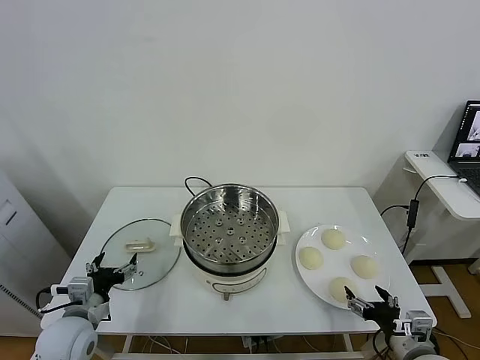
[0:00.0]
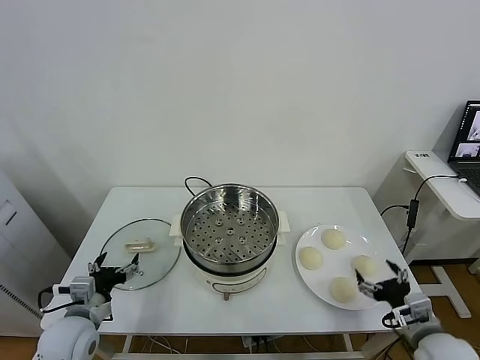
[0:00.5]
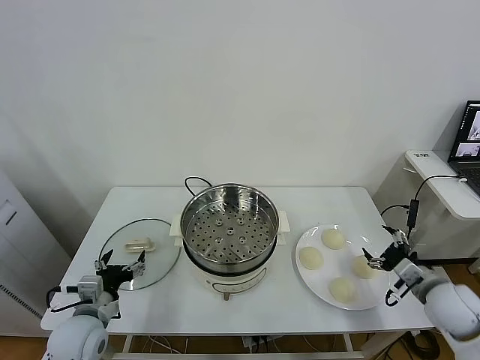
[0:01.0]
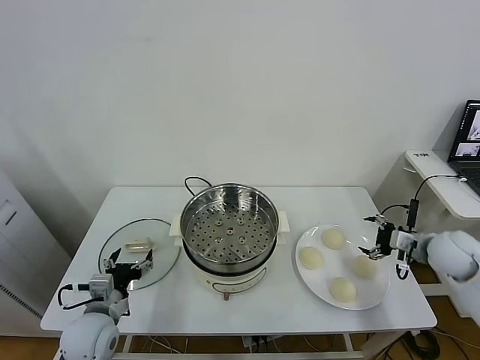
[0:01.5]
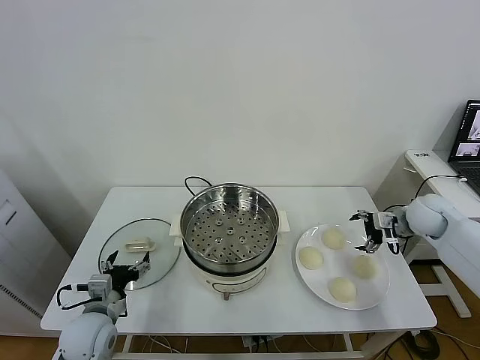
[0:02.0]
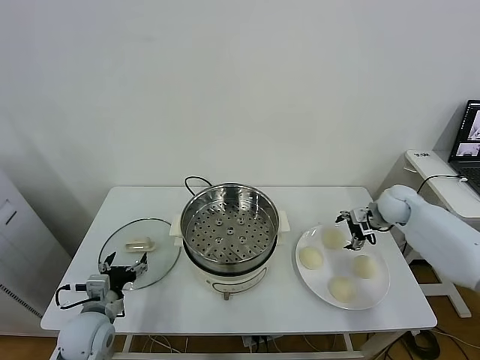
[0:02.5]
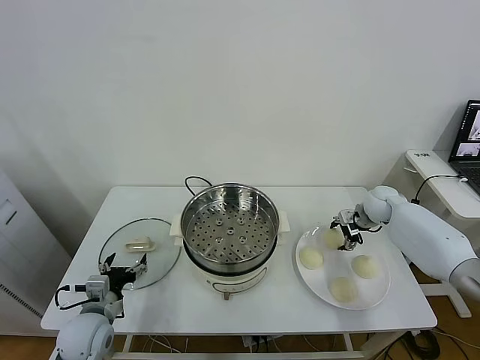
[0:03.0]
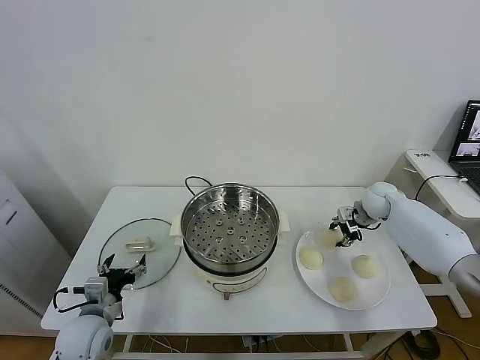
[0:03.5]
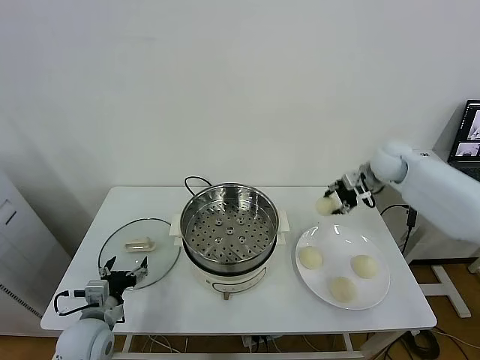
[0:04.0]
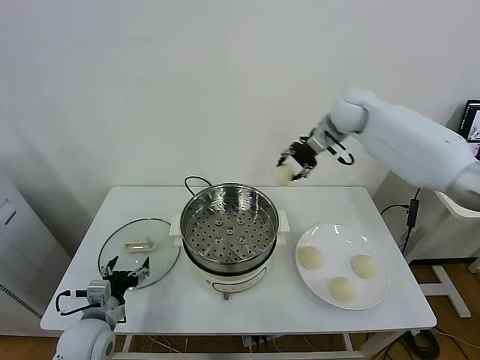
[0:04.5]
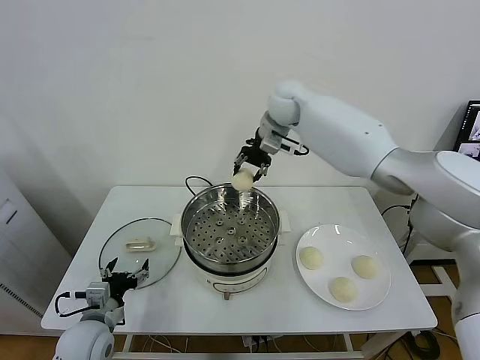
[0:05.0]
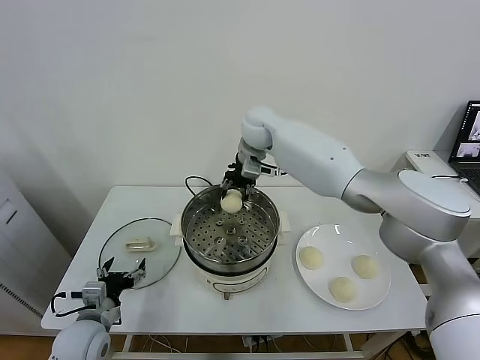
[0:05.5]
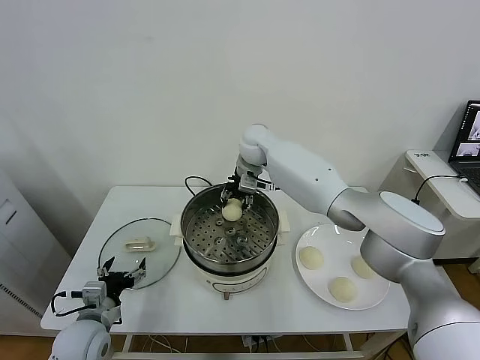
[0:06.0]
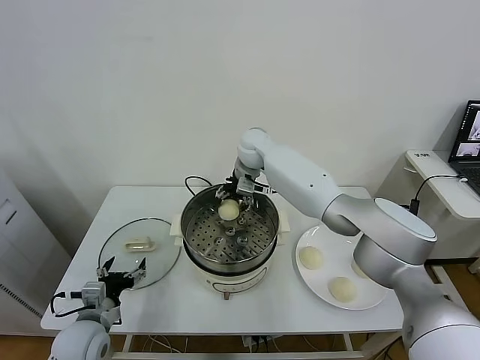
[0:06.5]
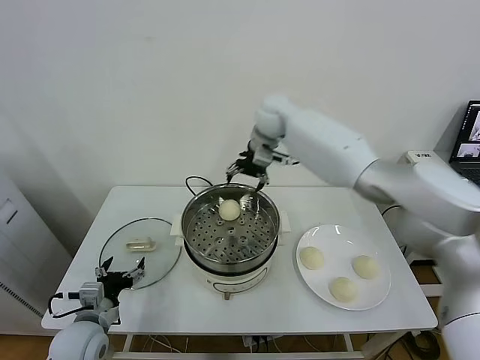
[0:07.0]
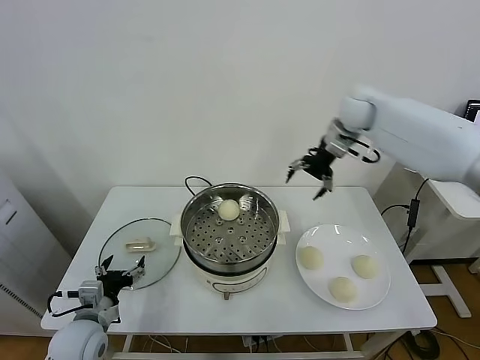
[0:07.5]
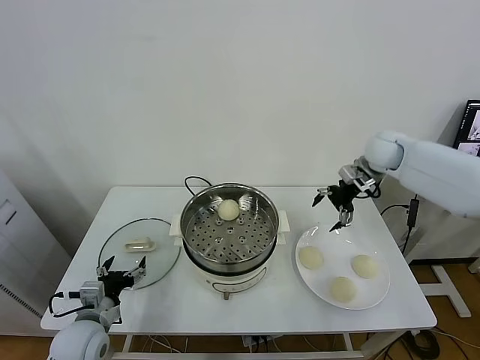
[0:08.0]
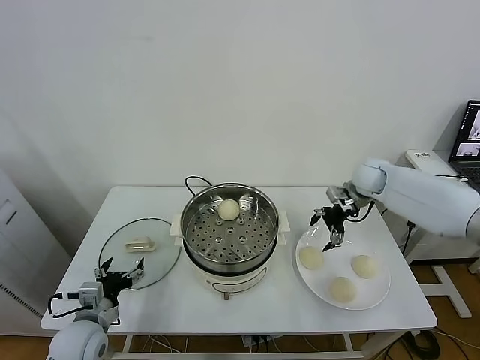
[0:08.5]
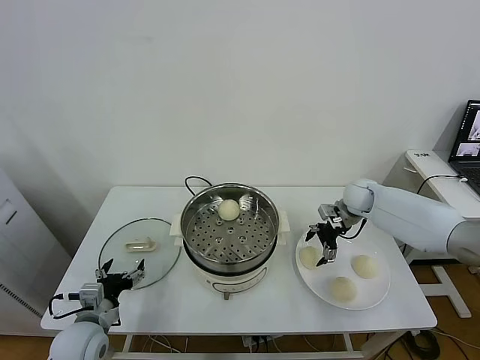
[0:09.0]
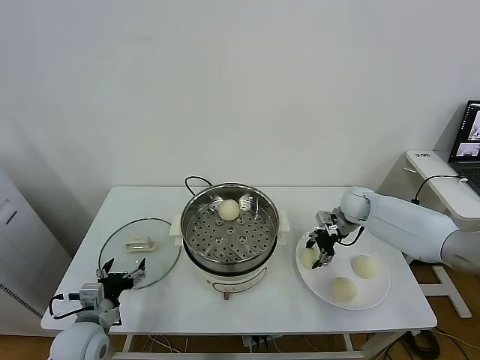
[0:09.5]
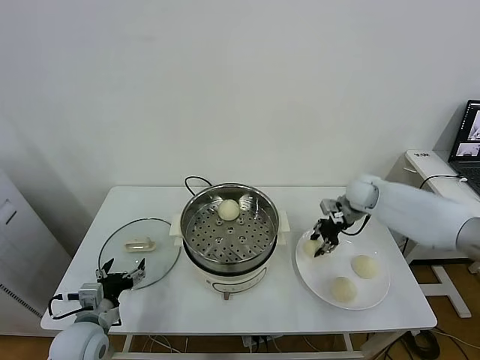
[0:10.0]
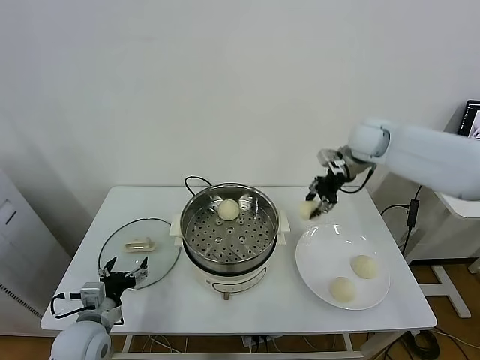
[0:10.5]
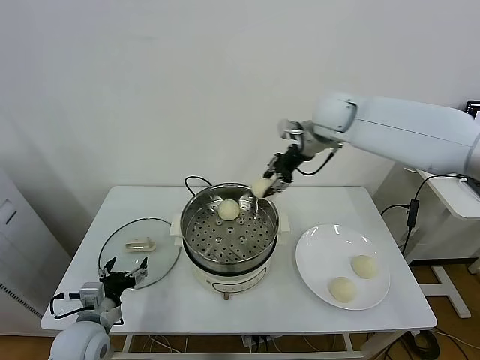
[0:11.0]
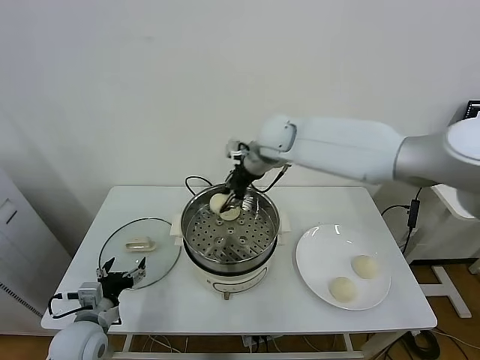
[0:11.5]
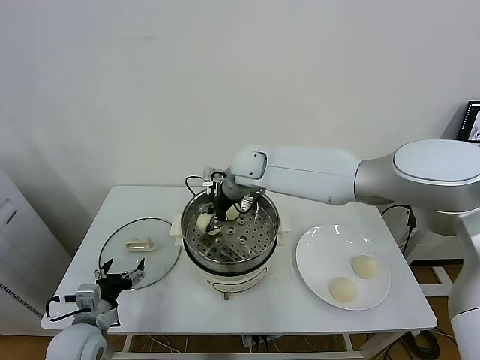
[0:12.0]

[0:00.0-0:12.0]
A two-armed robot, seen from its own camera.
Task of the whole recording: take steamed baozi put them in steamer.
Step, 0.0 to 3.0 s: Grasp the baozi in the plate with right gripper.
Step, 3.5 to 6.5 s: Place the baozi on the steamer with right gripper.
Step, 7.0 to 9.0 s: Grasp the baozi in the plate with right gripper.
2.0 to 4.0 s: The right gripper heads upward, to the left and forward, covering about 20 cm, and closes its fingers.
4.0 to 6.0 s: The right gripper heads to the left, covering about 30 cm.
6.0 to 8.0 s: The right gripper shifts some 30 cm to the right, and opens.
8.0 to 10.0 s: The right gripper travels downward by approximately 5 cm, and closes up.
10.0 to 12.0 s: The right gripper travels to the left by approximately 30 cm.

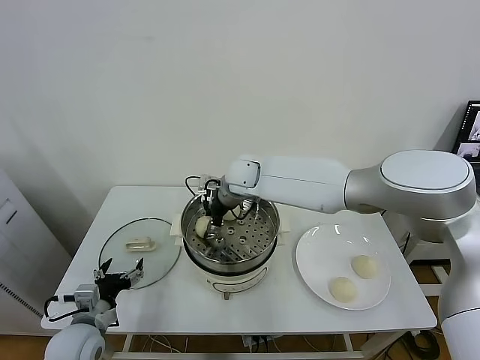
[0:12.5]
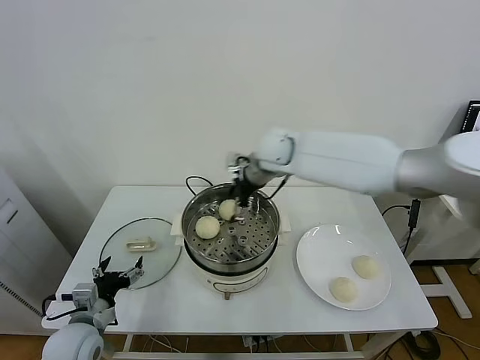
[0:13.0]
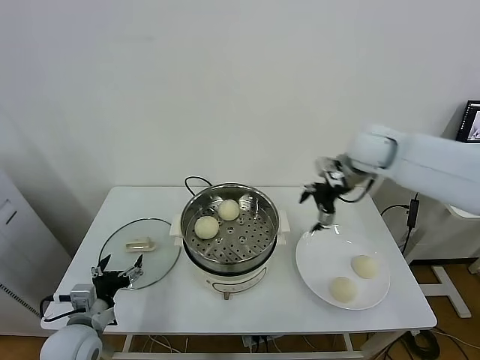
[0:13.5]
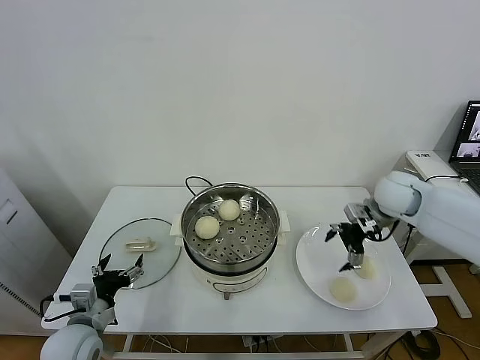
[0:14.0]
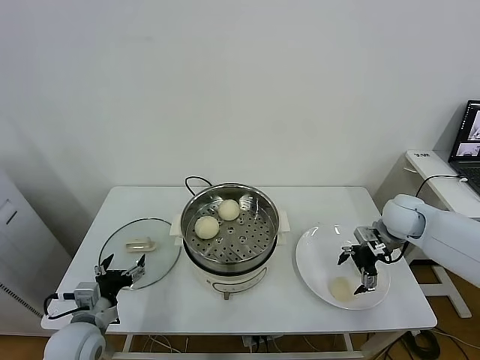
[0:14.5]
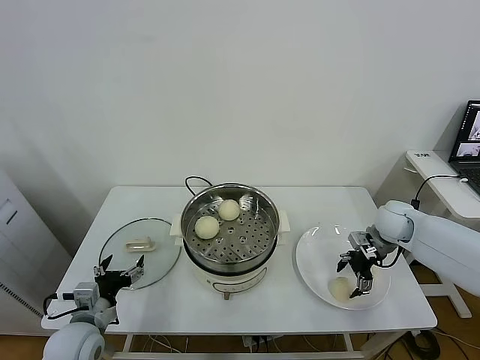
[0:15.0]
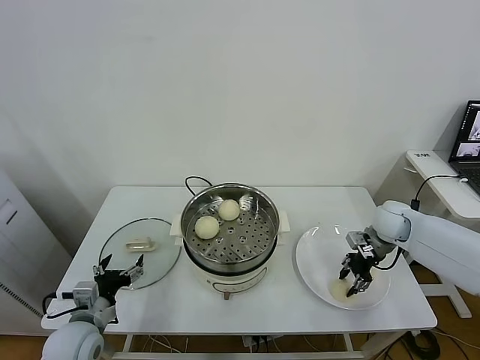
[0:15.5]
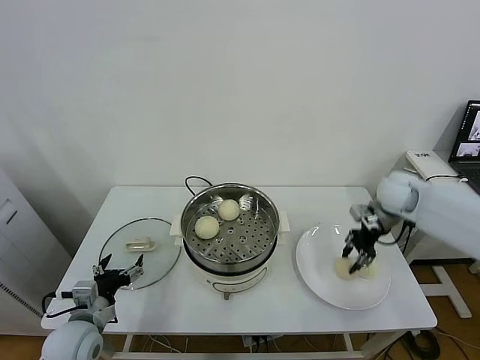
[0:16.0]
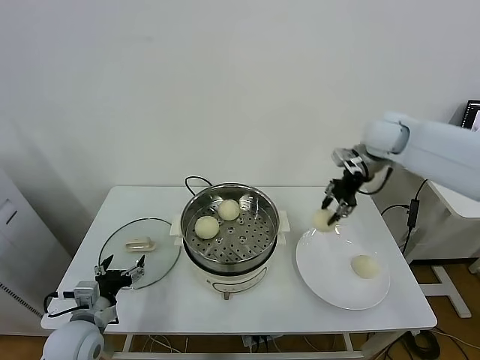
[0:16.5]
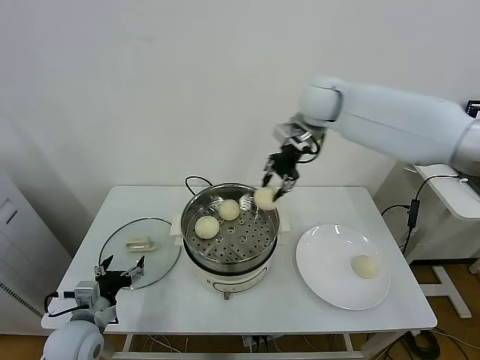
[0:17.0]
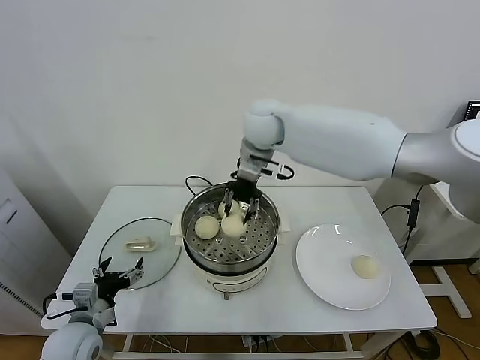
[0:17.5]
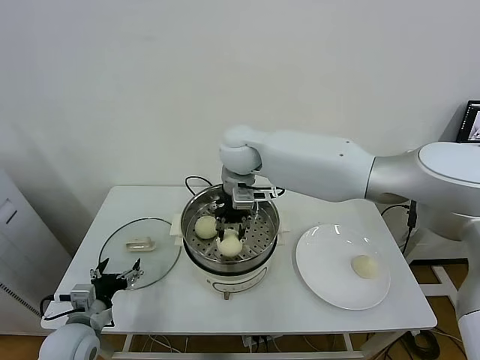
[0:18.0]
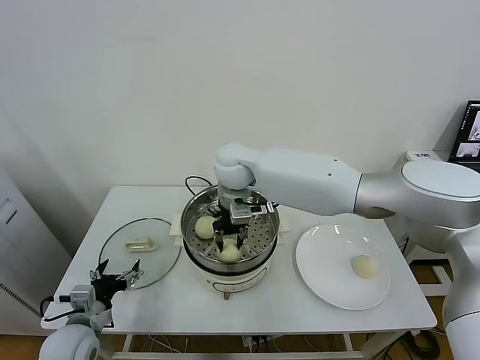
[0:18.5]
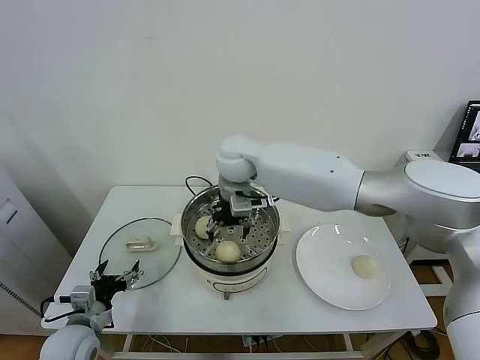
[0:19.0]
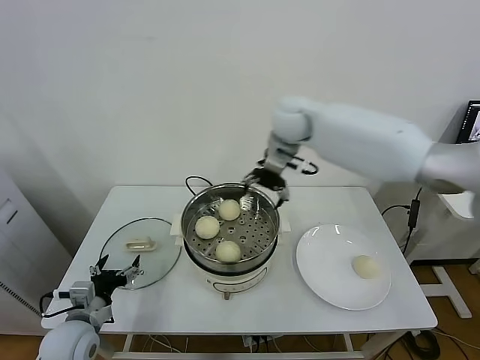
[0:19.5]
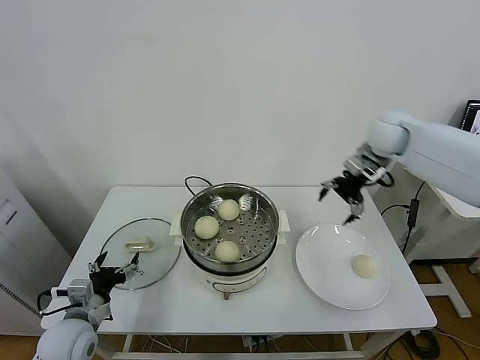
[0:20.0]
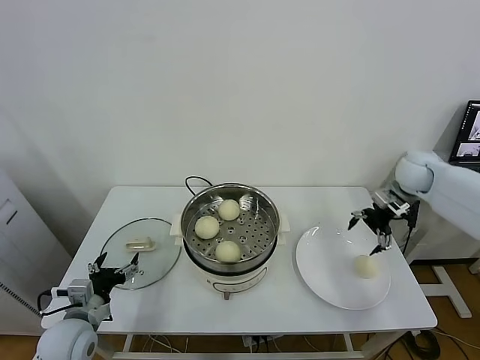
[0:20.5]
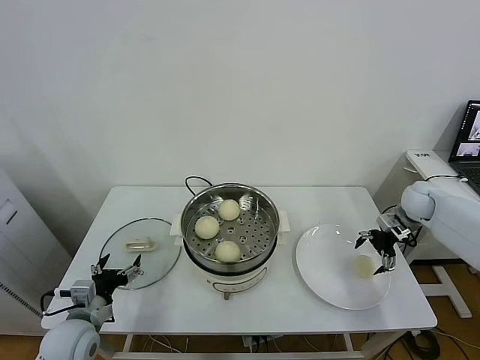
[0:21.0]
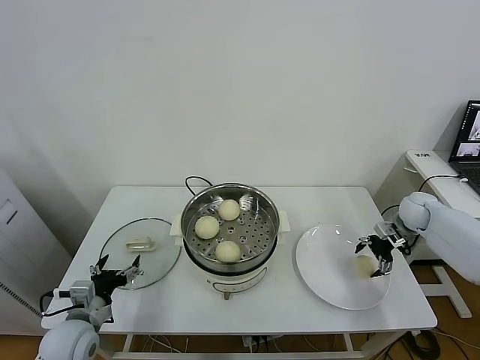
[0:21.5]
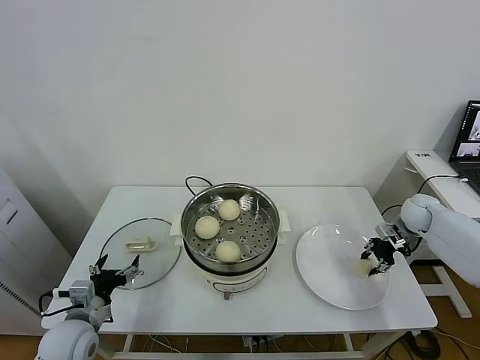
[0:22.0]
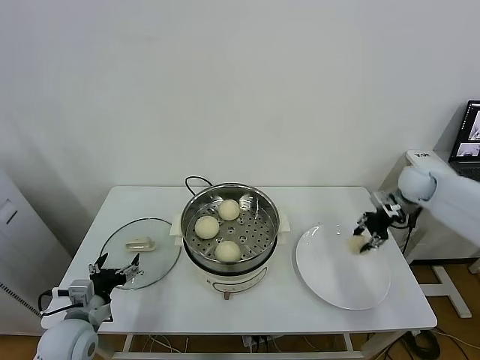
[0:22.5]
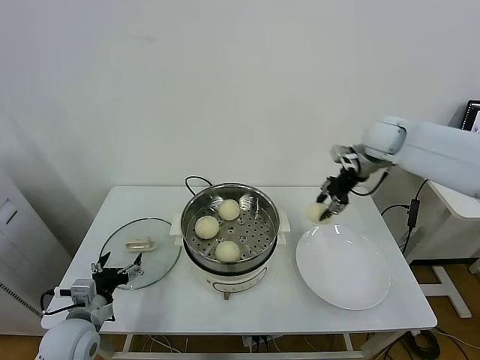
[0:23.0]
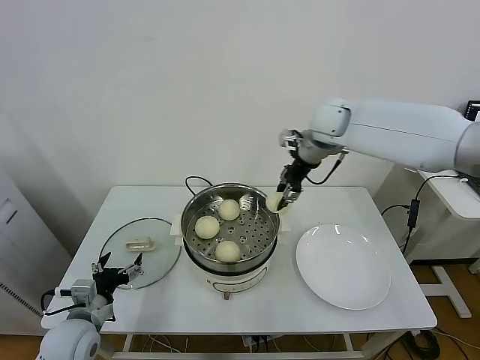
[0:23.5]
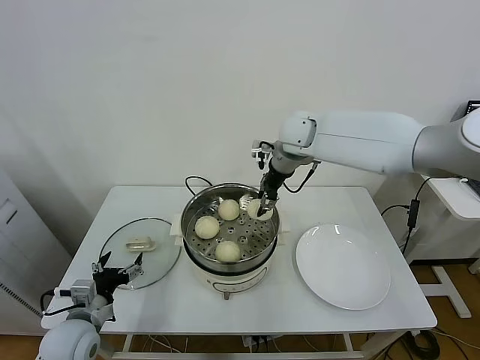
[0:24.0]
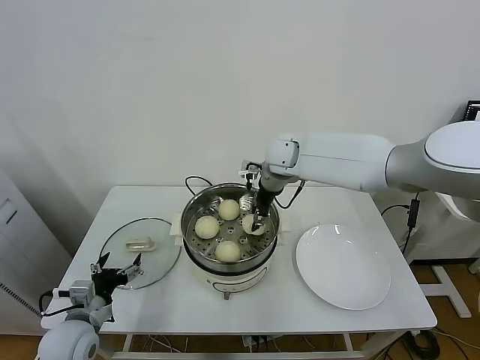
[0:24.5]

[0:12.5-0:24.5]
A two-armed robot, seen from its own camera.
Task of the whole recording: take steamed baozi put them in steamer.
Step, 13.0 to 15.0 s: Grasp the baozi in the plate with right gripper.
Step, 15.5 to 18.5 s: Place the baozi on the steamer with right gripper.
Step, 19.5 to 21.5 s: Grasp the baozi in the plate with right gripper.
12.5 to 14.5 s: The right gripper heads to the right, covering approximately 40 cm, and opens up.
14.5 to 16.5 s: The right gripper heads upward, to the left and forward, covering some 25 cm, and closes its fingers.
16.5 to 18.5 s: The right gripper moves to the left, roughly 30 cm.
18.5 to 20.5 s: The right gripper heads to the right, covering some 40 cm, and opens.
20.5 to 22.5 s: The right gripper travels downward and back again, about 10 cm each way, and closes up.
22.5 to 24.5 s: The right gripper shifts some 35 cm to the left.

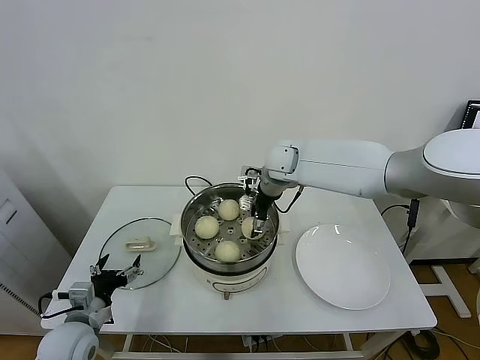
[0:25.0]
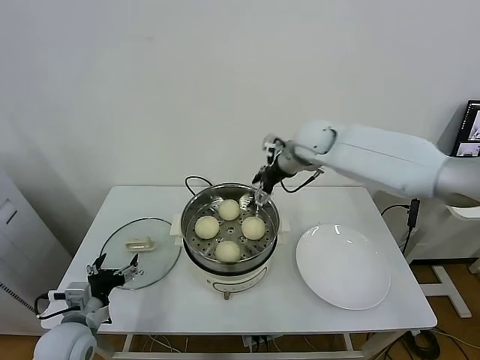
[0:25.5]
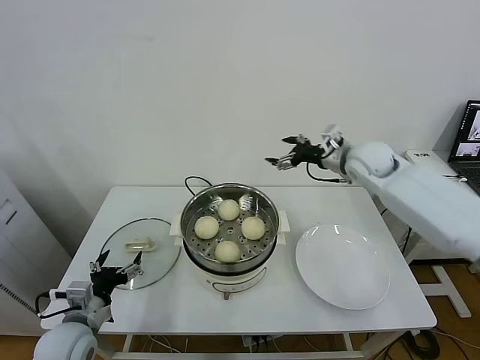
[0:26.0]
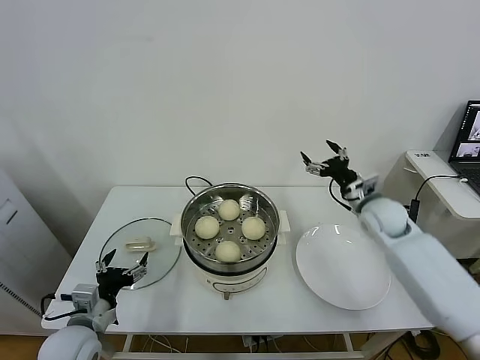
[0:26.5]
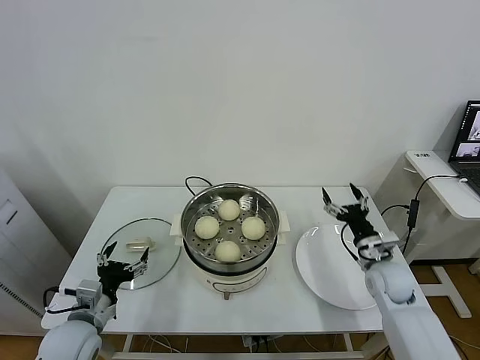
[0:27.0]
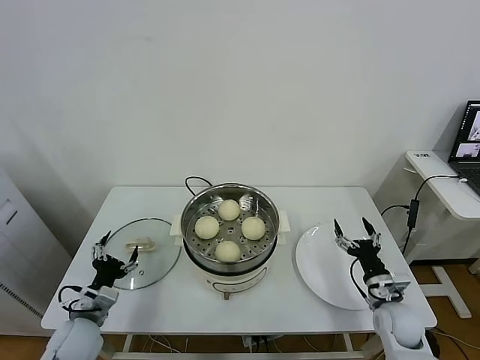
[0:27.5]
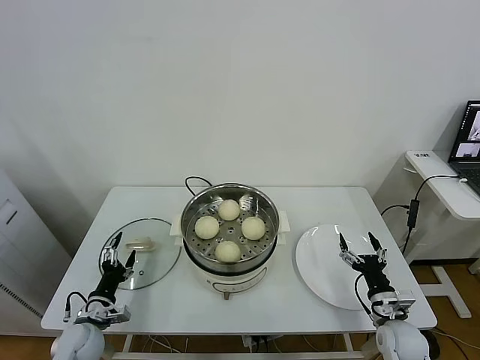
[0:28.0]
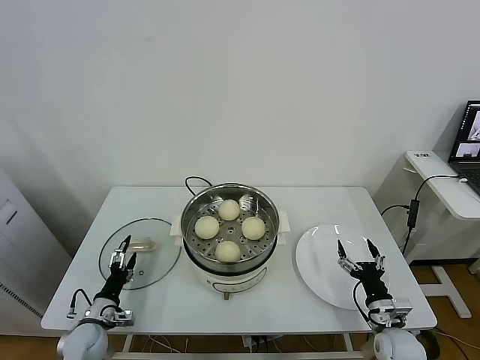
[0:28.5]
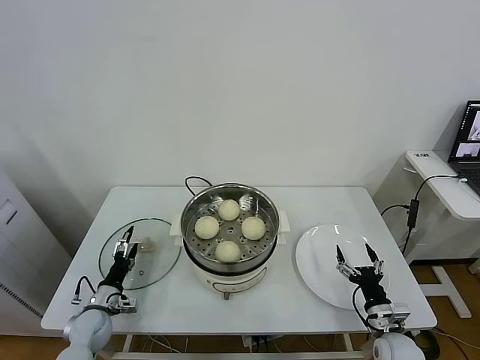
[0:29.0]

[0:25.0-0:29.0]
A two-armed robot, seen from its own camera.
Task of the whole recording: take steamed baozi put them in steamer.
25.0 to 27.0 s: The right gripper travels to the right, downward and backward by roughly 40 cm.
27.0 to 29.0 s: The left gripper goes some 15 cm downward and forward, while the right gripper heads backward and downward, covering approximately 15 cm.
